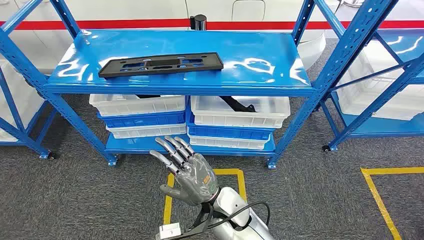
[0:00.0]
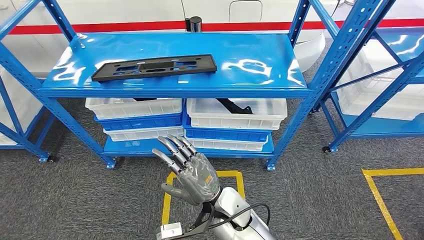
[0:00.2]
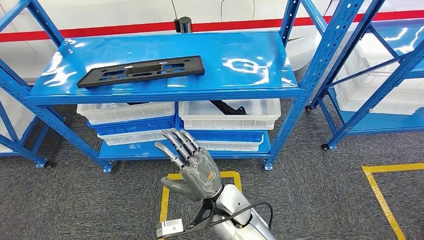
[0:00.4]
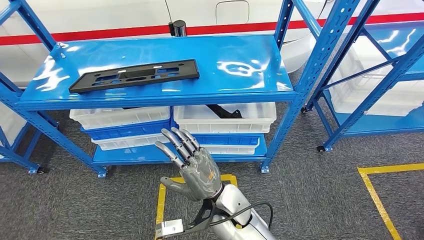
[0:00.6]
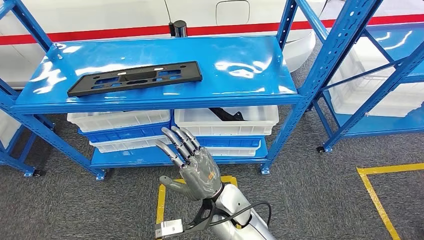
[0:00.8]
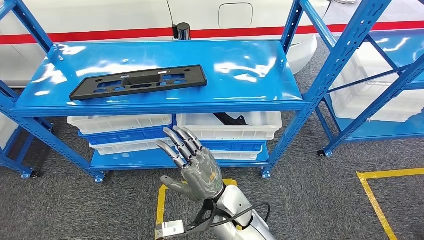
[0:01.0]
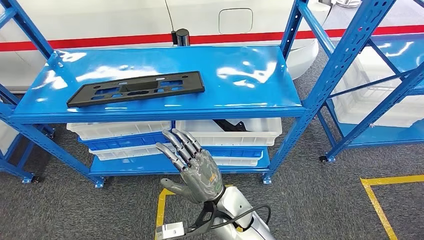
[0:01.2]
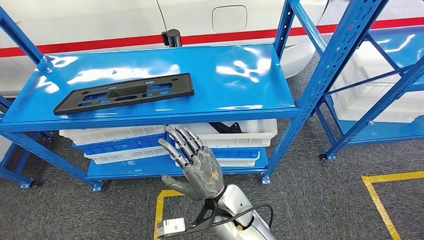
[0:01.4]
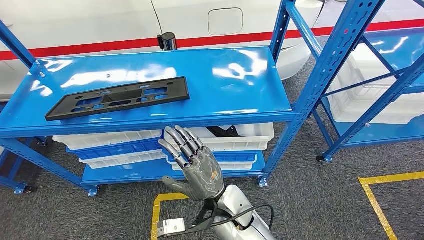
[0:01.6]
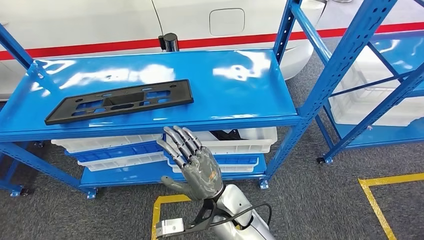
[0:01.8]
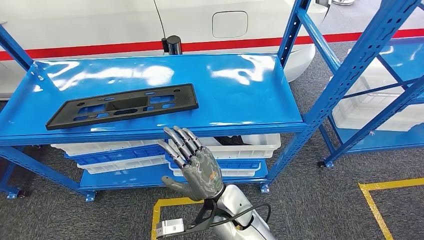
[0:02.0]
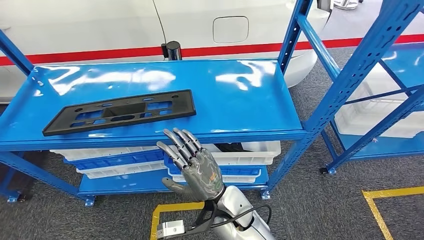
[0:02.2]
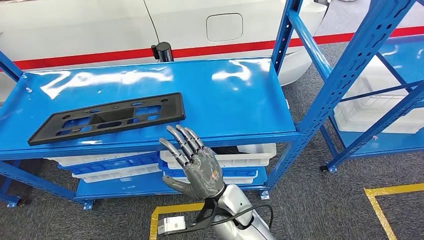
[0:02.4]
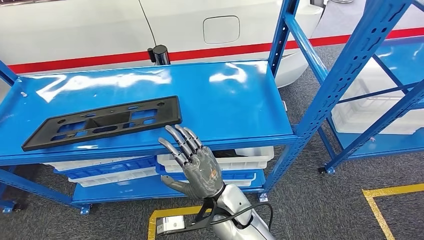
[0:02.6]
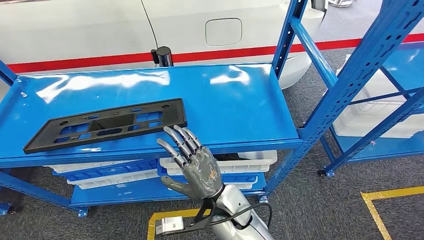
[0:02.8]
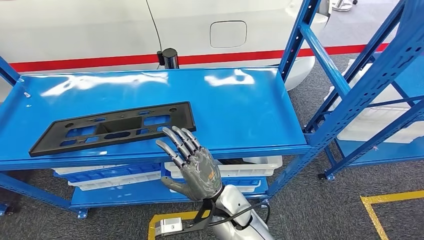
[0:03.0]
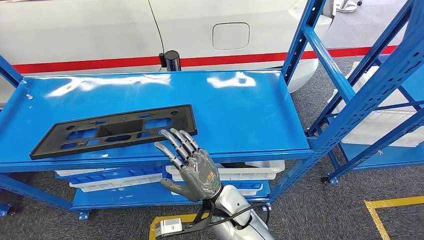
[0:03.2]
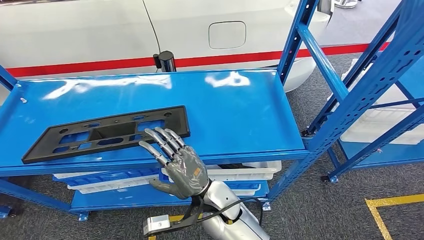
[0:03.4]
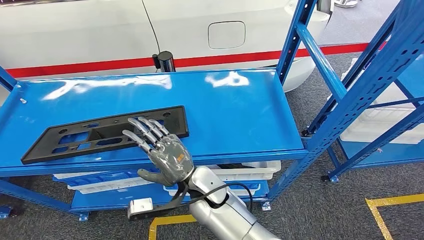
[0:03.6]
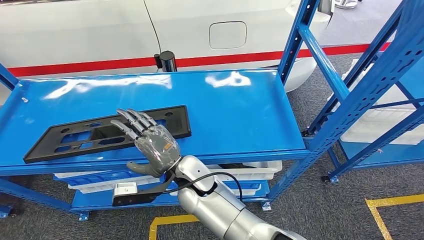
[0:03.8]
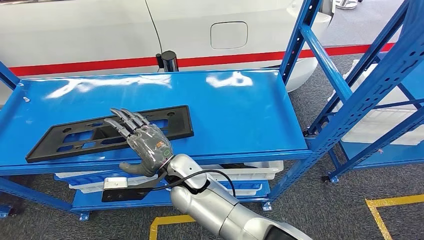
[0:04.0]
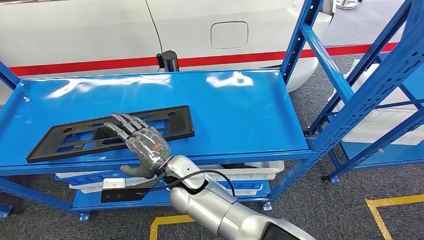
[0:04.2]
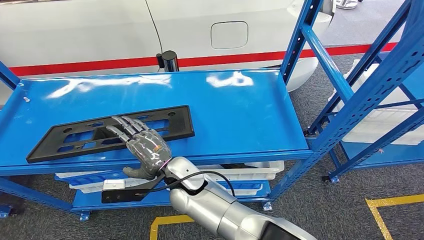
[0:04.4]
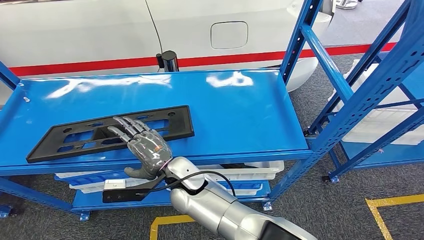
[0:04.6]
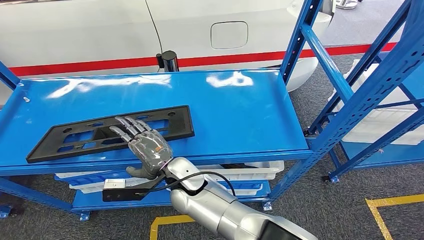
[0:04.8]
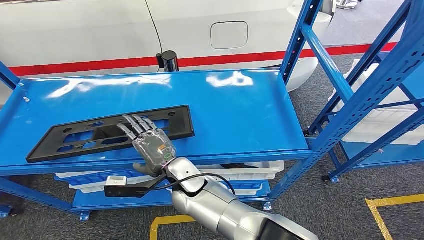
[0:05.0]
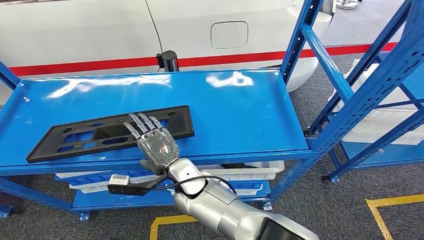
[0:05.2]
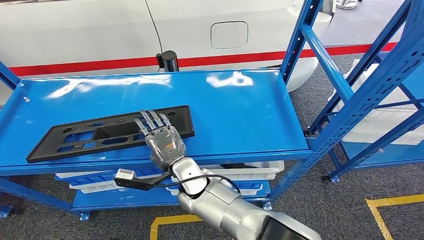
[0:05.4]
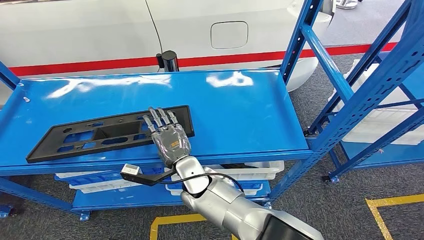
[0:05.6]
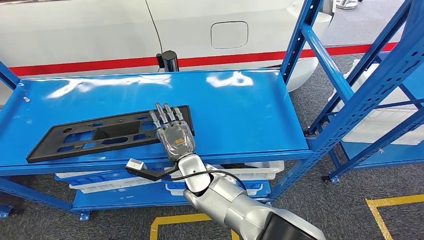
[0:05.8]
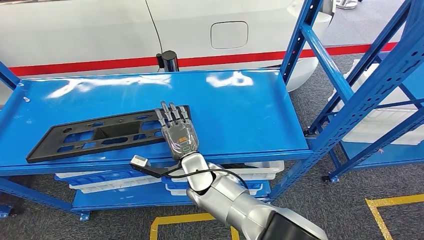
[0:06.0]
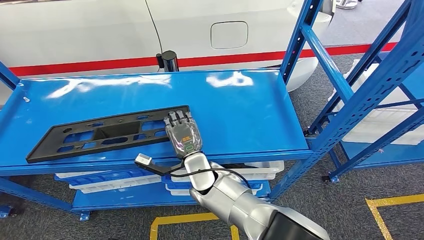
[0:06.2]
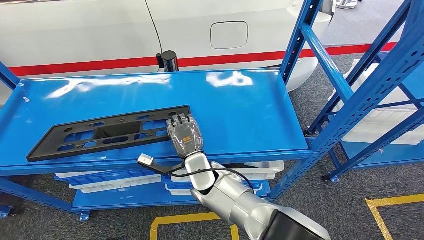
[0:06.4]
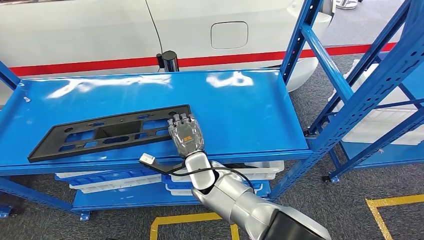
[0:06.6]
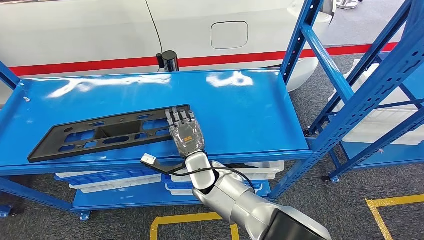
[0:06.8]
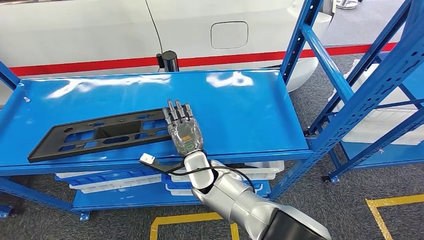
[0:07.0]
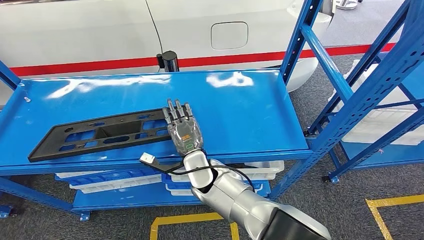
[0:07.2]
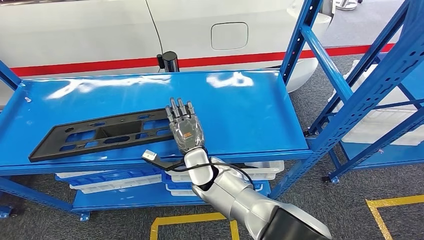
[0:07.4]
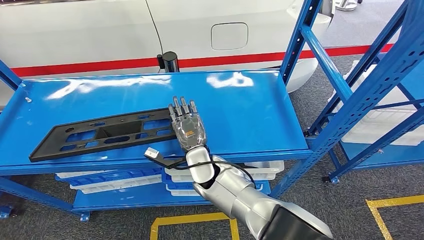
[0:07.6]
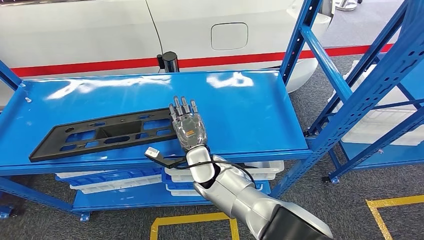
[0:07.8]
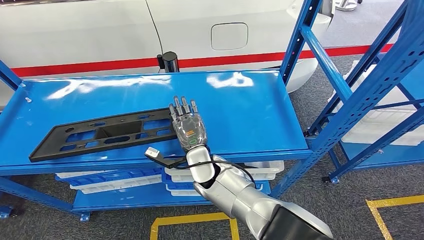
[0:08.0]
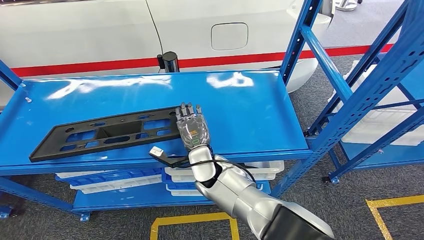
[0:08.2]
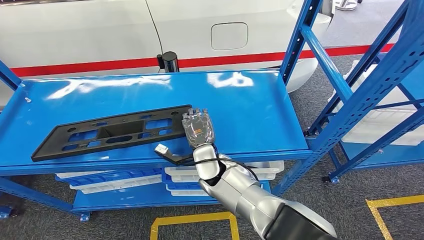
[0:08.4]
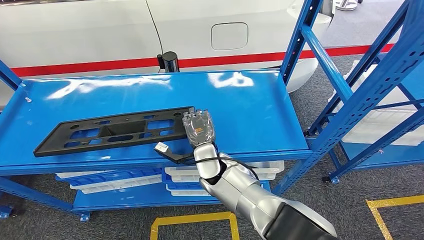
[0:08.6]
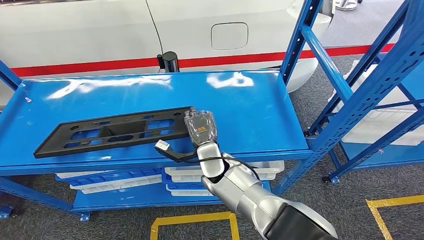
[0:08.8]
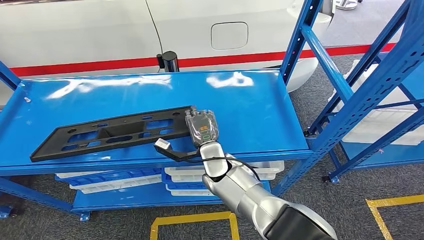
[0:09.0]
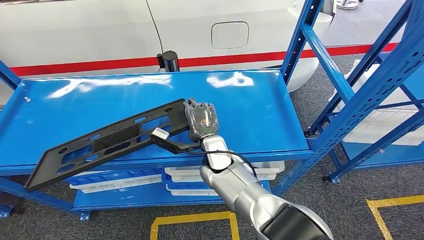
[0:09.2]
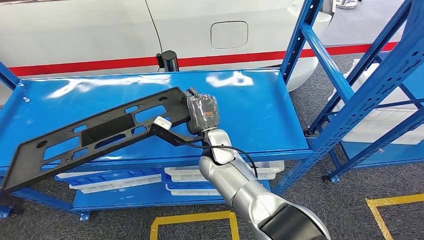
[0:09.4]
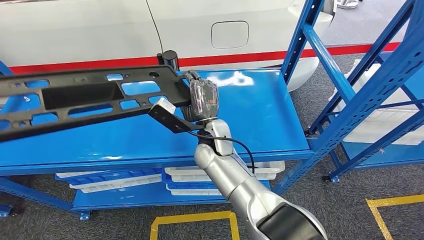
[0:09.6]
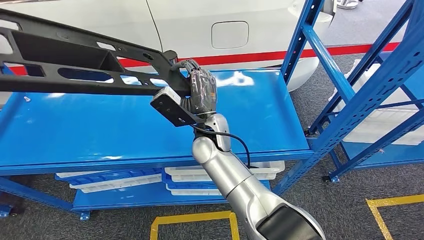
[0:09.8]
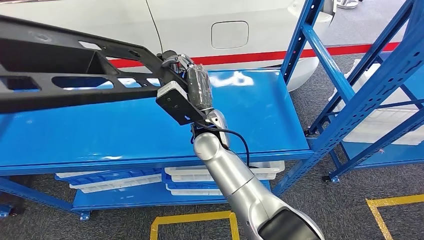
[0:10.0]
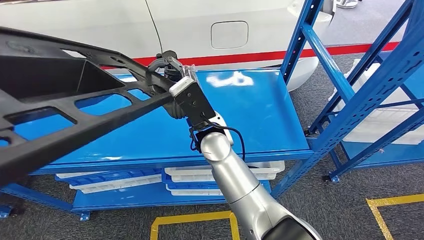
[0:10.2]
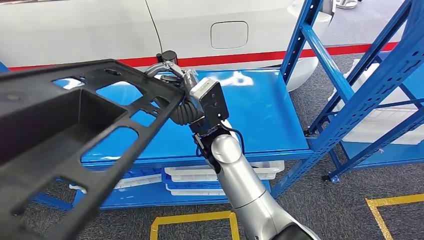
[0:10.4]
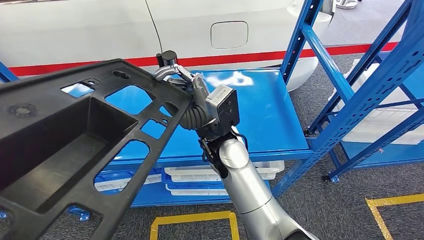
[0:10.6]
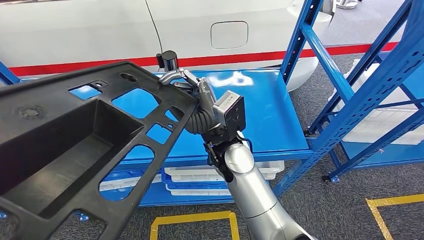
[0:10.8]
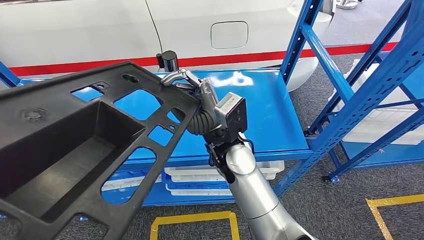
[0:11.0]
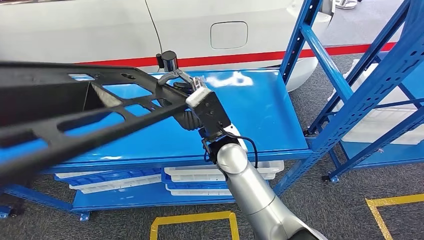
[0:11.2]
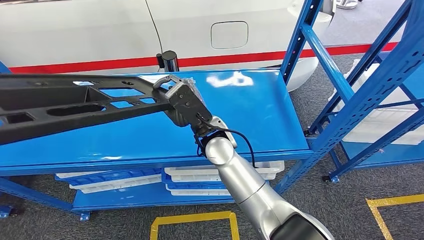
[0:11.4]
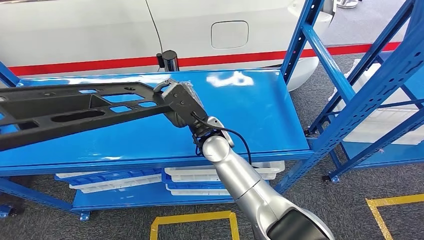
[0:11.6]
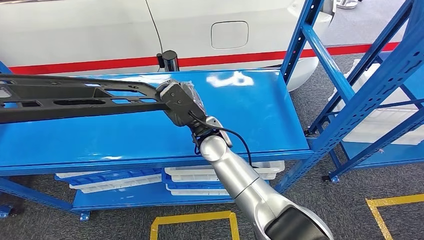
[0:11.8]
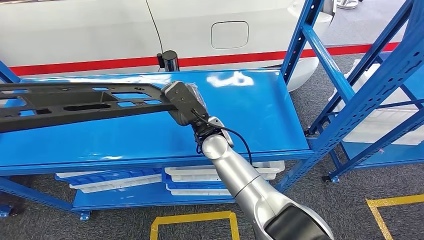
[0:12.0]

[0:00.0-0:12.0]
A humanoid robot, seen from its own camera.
0:04.4 to 0:06.0: The right hand shifts by about 5 cm.
0:06.0 to 0:07.6: The hands stay close to where they were, moving slightly.
0:07.6 to 0:09.0: There are only small adjustments of the hands.

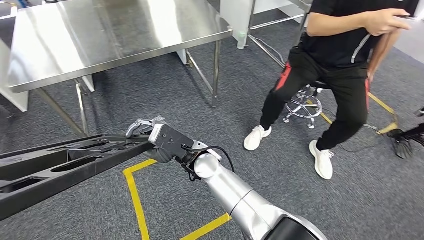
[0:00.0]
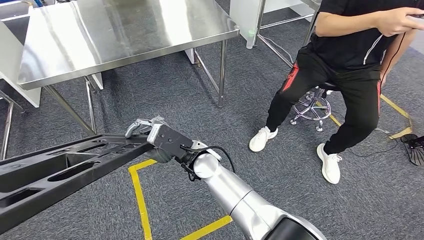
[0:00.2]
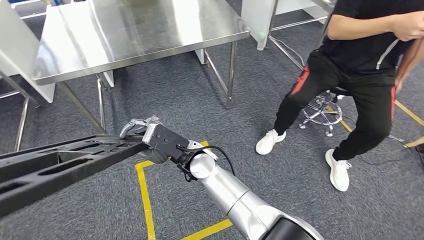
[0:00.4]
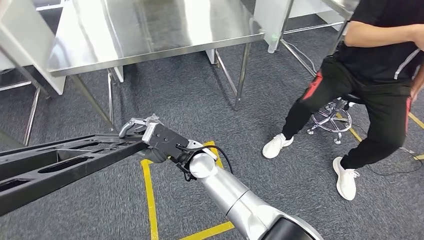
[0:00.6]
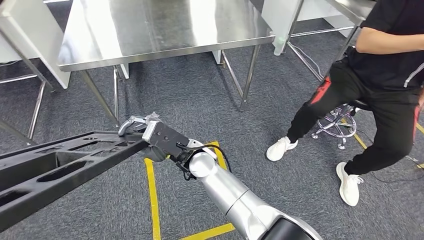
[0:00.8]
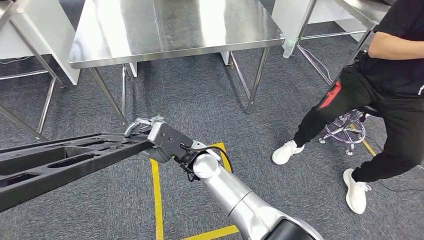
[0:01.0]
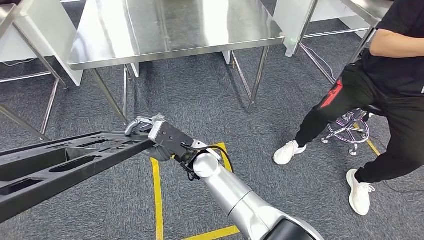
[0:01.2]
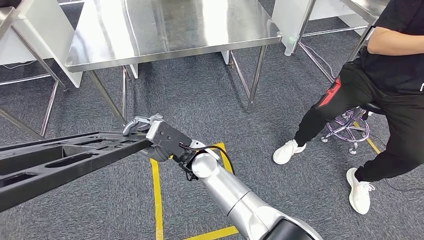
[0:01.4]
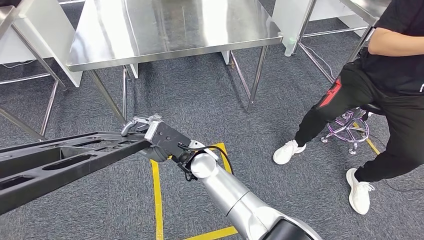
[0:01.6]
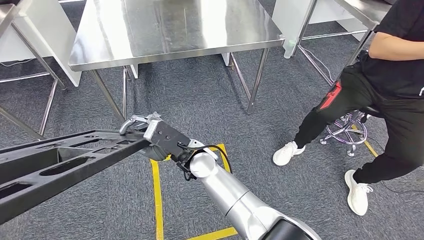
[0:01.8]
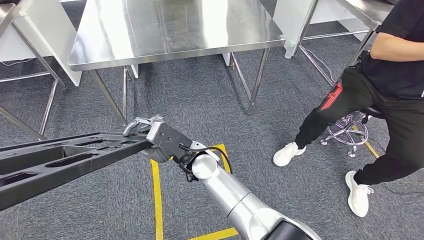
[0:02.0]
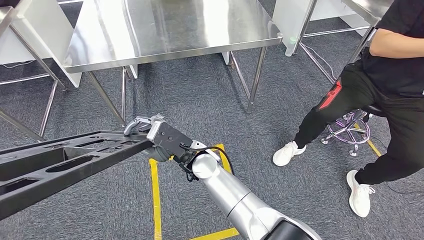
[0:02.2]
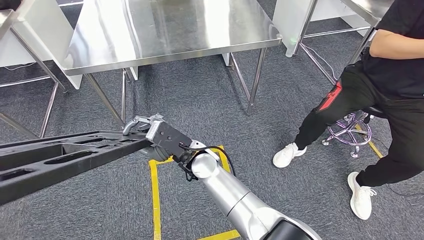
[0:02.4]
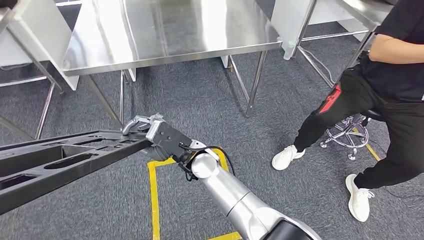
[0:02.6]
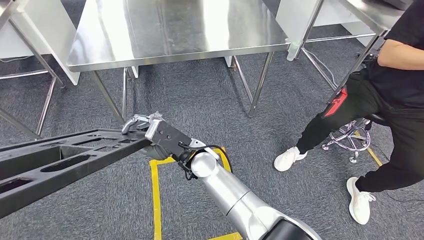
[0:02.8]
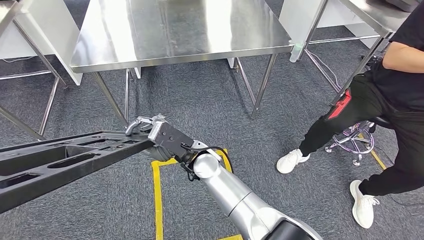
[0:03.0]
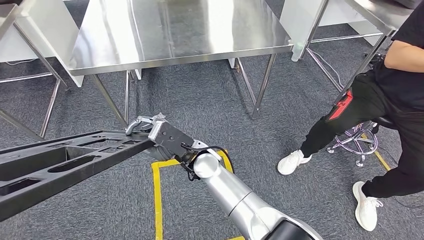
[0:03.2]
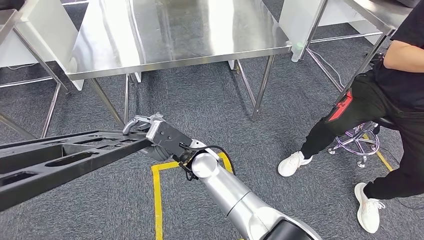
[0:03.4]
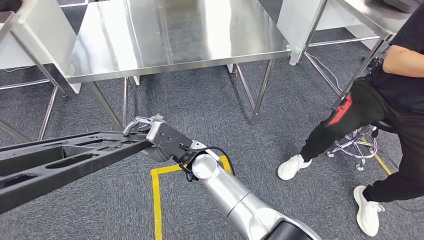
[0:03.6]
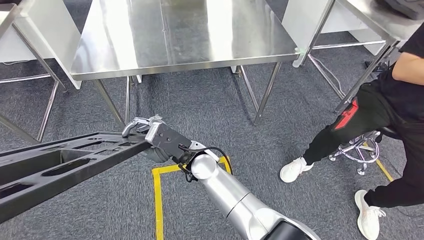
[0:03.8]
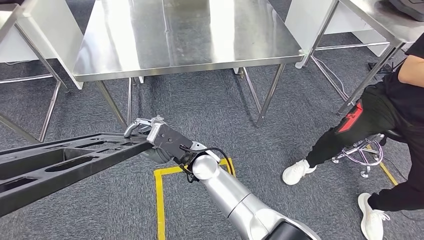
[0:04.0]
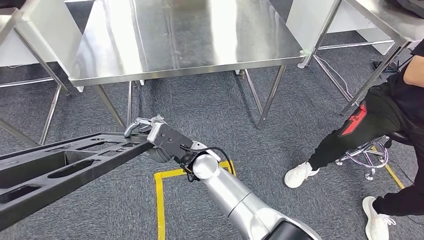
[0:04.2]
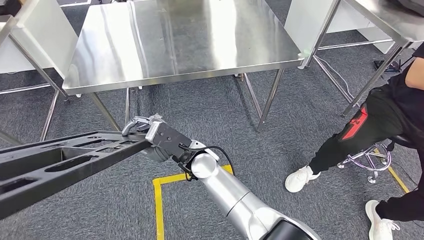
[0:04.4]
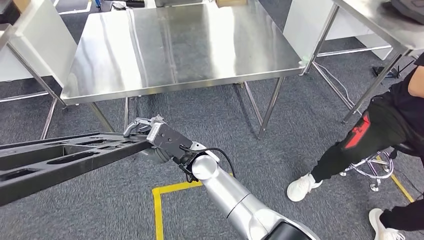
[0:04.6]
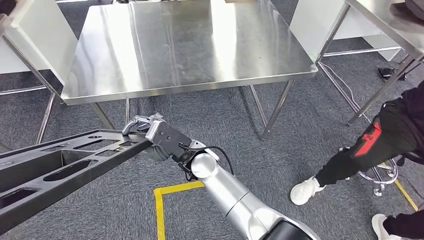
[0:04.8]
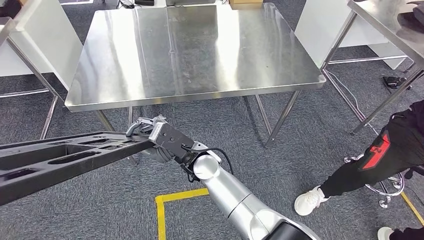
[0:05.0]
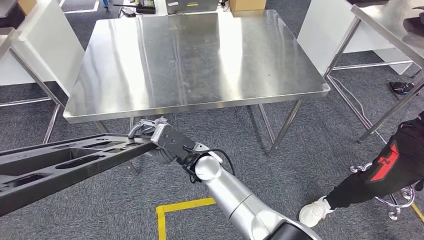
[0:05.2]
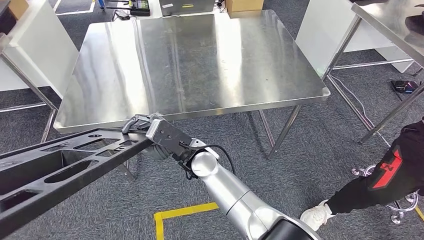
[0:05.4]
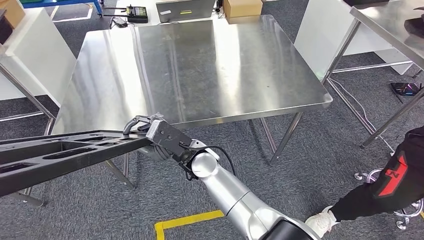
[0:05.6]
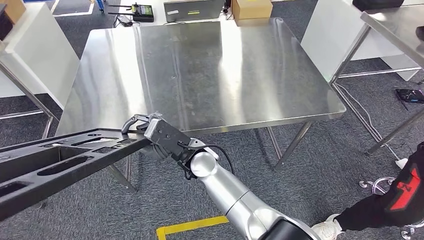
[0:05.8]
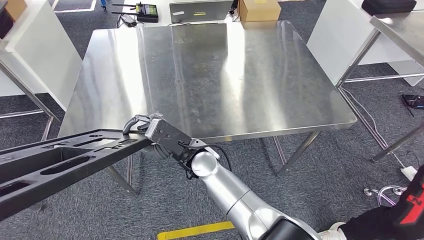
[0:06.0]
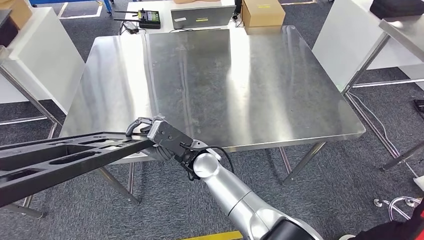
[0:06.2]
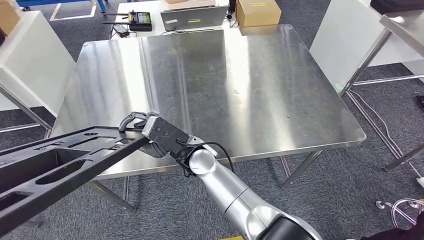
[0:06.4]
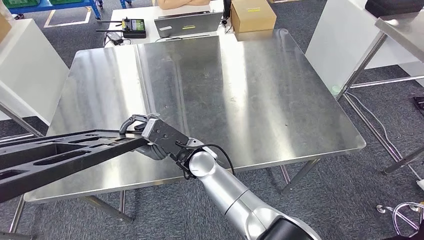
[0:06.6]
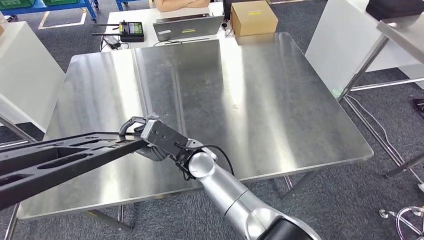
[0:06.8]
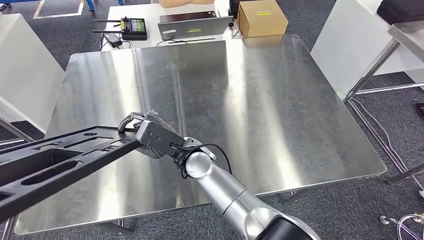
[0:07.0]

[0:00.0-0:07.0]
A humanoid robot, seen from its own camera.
Step, 0:00.0 to 0:04.8: Move the large material to the front of the workbench.
